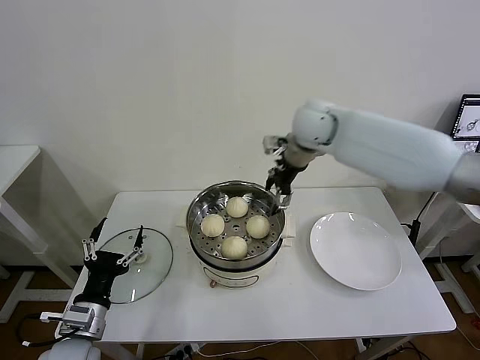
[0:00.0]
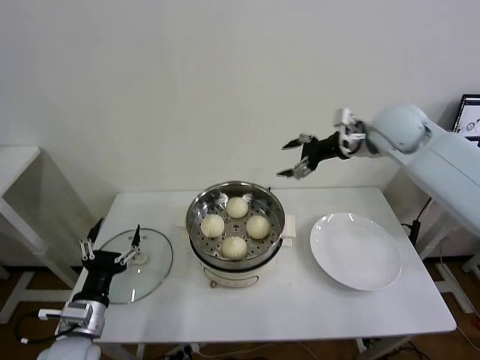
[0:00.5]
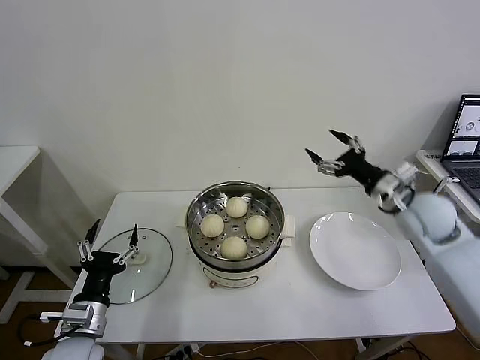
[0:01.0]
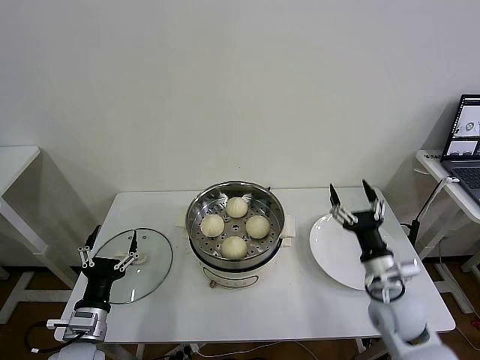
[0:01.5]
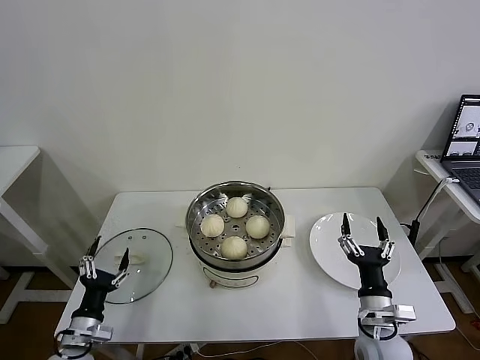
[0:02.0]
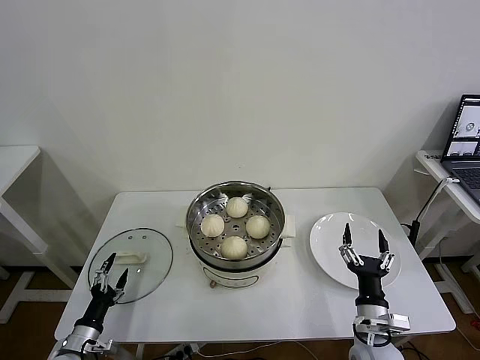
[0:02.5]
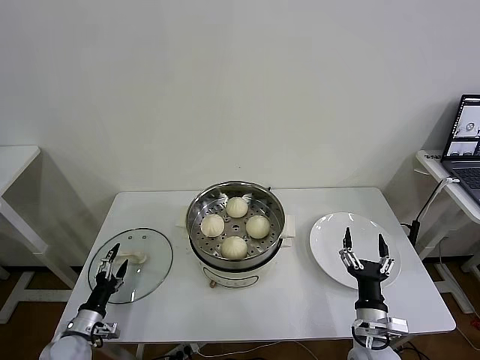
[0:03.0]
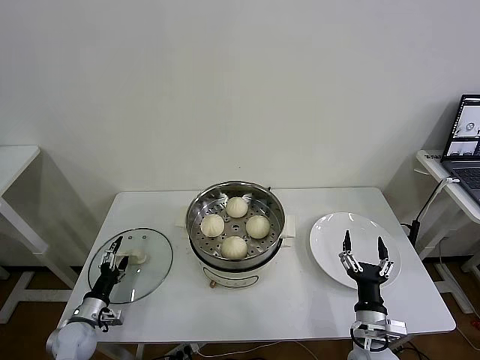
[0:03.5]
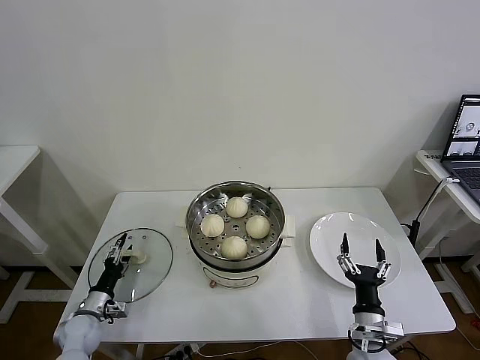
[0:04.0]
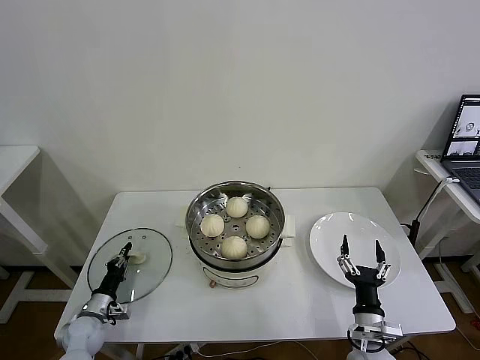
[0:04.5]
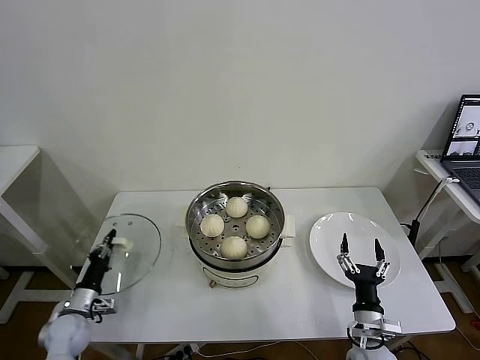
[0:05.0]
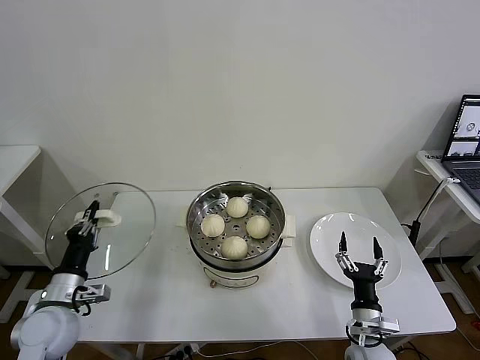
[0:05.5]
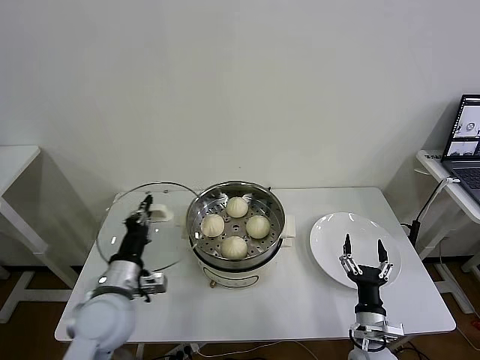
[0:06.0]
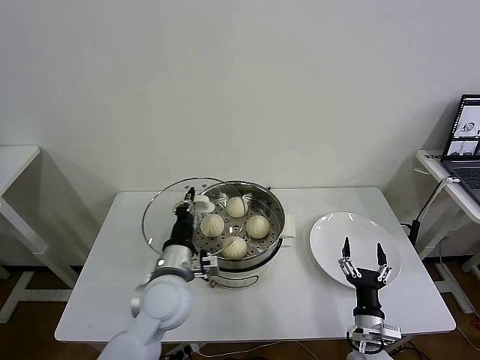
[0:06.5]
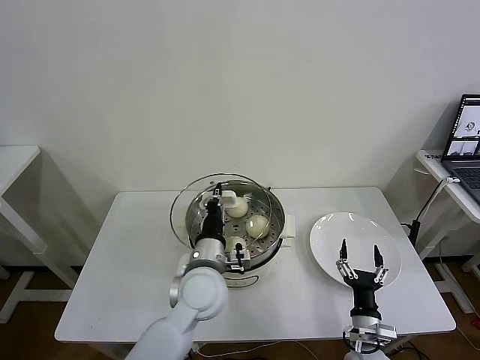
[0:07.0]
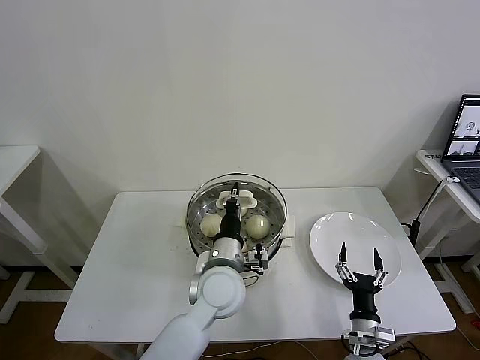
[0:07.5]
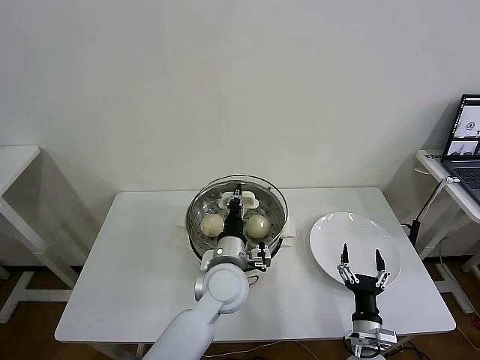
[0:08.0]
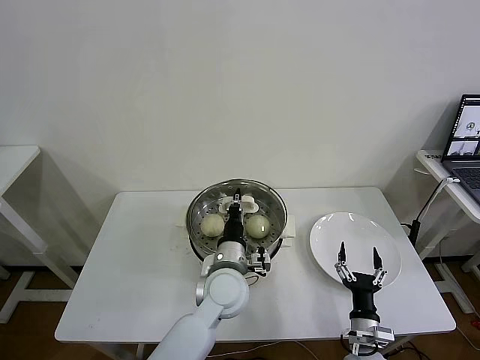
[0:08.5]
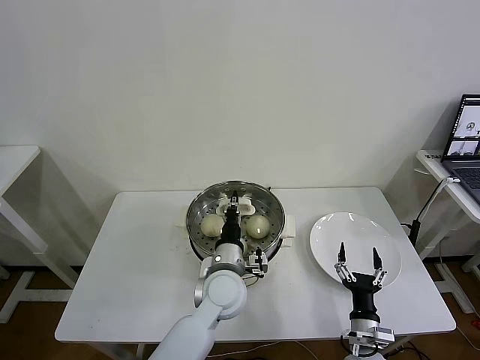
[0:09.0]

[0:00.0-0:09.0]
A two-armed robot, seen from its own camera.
Task of the whole recording: take steamed baozi put them in steamer then cover it.
Step, 0:00.0 to 0:04.5: Grasp the pot lid with left gripper.
0:00.0 to 0:02.0: The right gripper is displaced backward and downward by roughly 50 cm. The left gripper heads downward, covering some 10 cm.
0:02.0 to 0:04.5: The left gripper goes roughly 15 cm downward, forward and to the left, and closes. The right gripper shifts about 5 cm downward.
0:04.5 to 0:07.0: The left gripper travels to the right and upward by about 40 cm.
0:07.0 to 0:09.0: The left gripper changes place by roughly 5 cm.

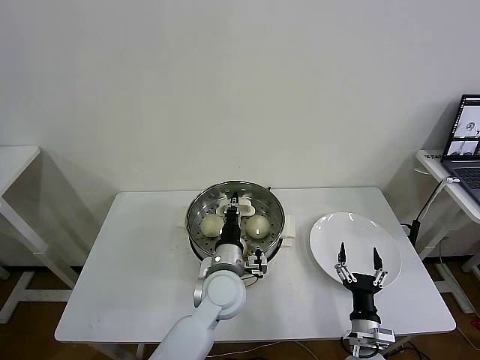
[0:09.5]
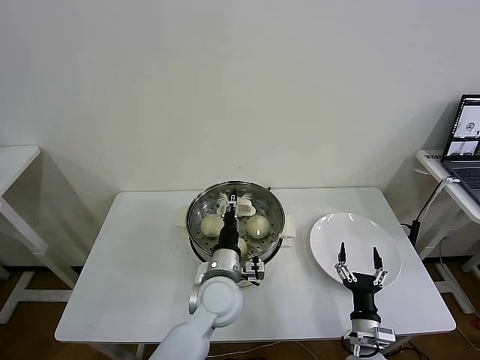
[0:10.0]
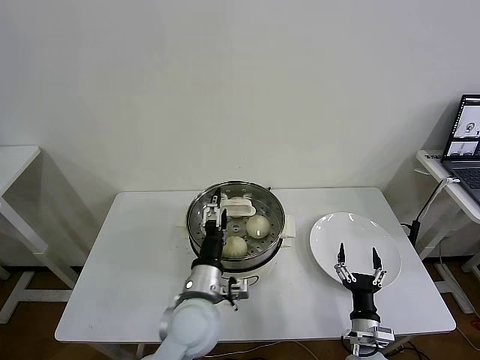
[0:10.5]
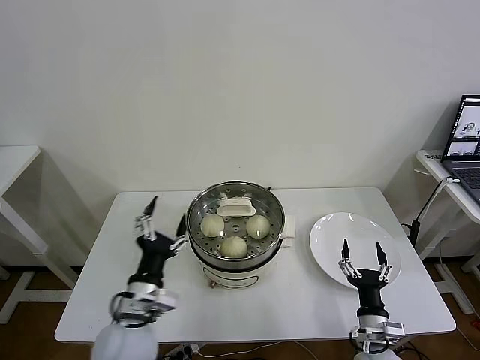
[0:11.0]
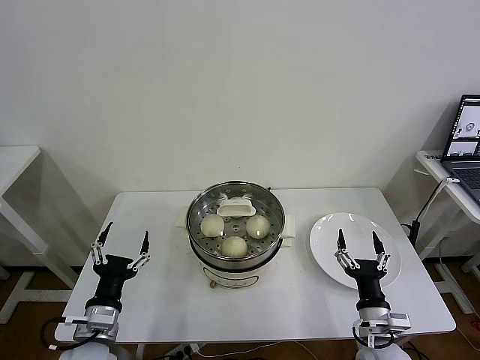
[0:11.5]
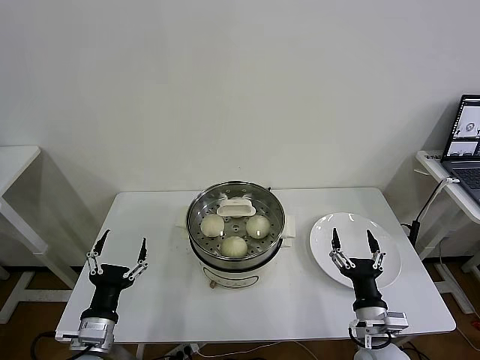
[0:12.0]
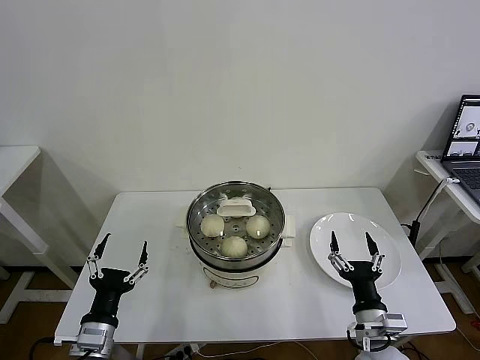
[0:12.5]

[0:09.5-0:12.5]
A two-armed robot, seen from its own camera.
Task of the whole recording: take steamed baozi put them in steamer then cover it.
0:09.5 to 0:11.0: The left gripper shifts about 15 cm to the left and backward, and opens up.
0:11.0 to 0:12.5: The left gripper moves to the left, downward and backward, roughly 15 cm. The right gripper heads upward, covering roughly 10 cm.
